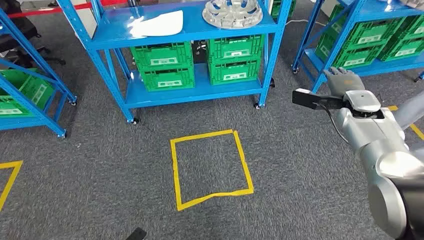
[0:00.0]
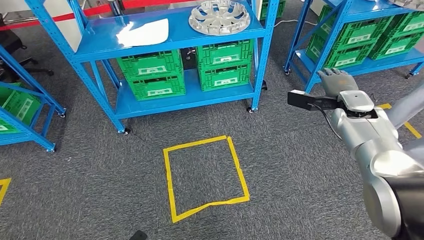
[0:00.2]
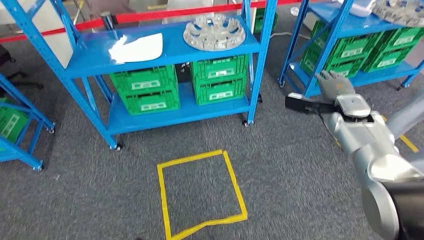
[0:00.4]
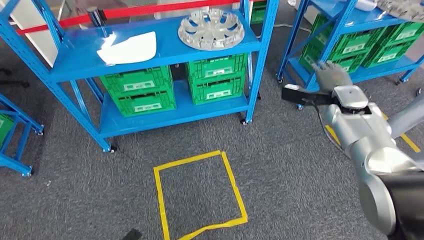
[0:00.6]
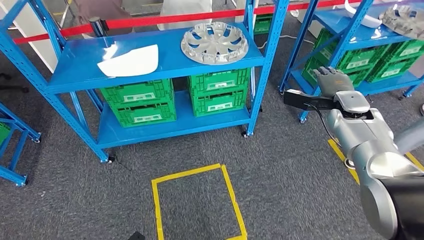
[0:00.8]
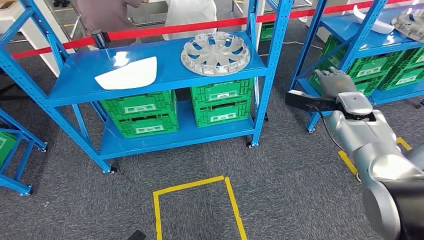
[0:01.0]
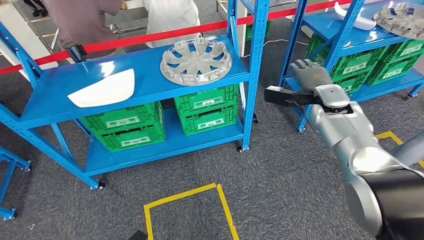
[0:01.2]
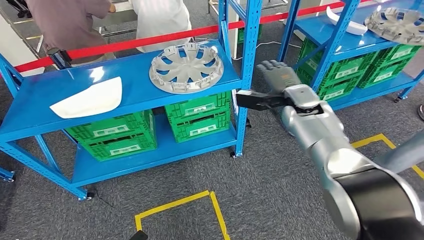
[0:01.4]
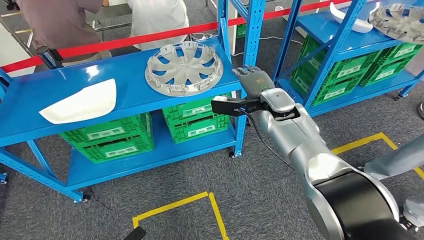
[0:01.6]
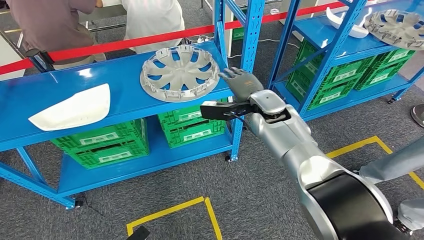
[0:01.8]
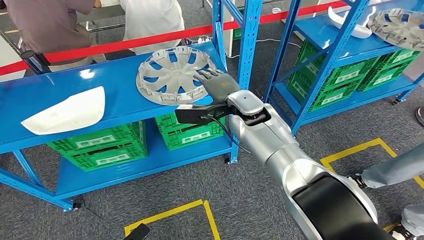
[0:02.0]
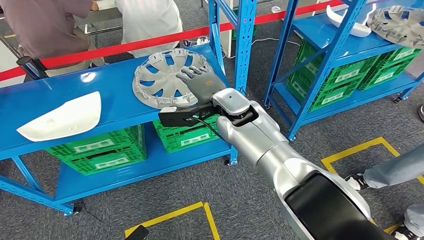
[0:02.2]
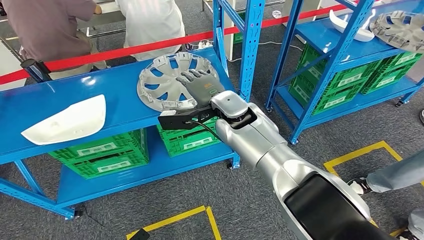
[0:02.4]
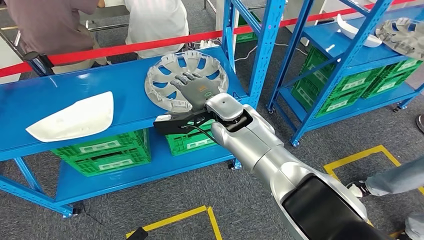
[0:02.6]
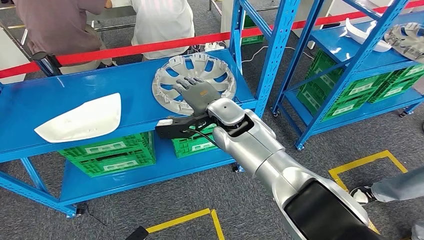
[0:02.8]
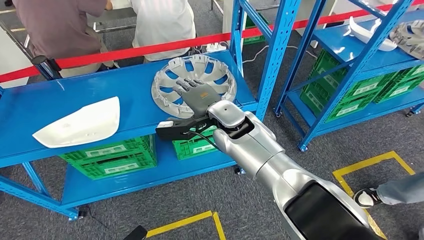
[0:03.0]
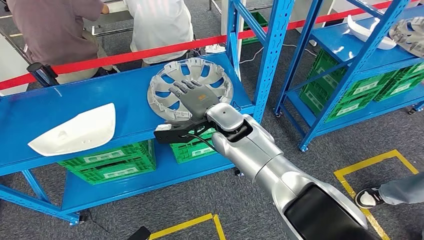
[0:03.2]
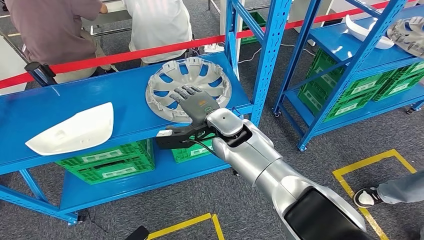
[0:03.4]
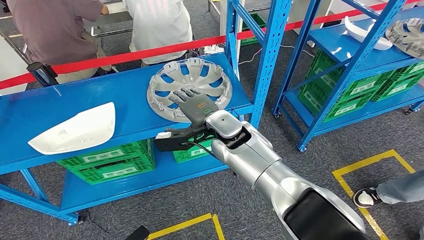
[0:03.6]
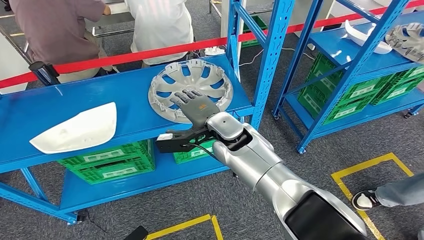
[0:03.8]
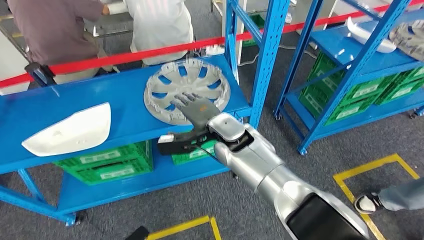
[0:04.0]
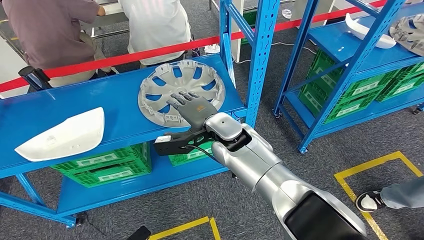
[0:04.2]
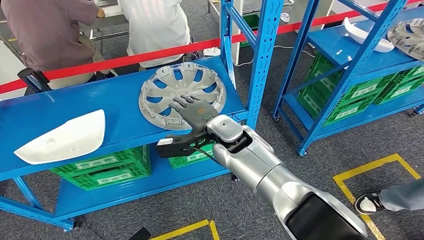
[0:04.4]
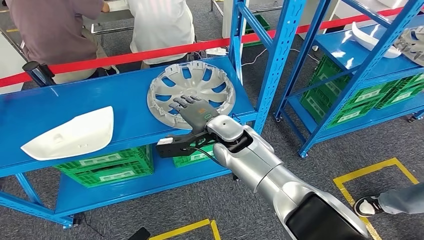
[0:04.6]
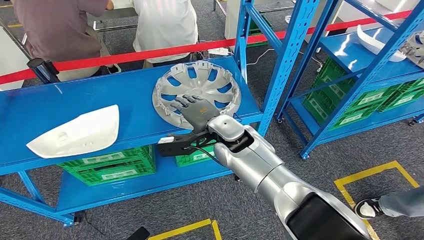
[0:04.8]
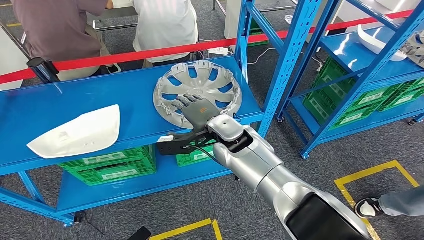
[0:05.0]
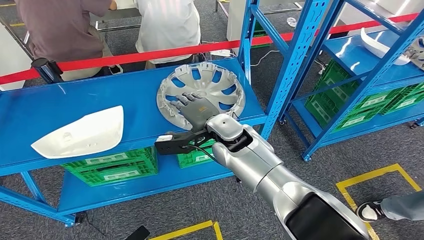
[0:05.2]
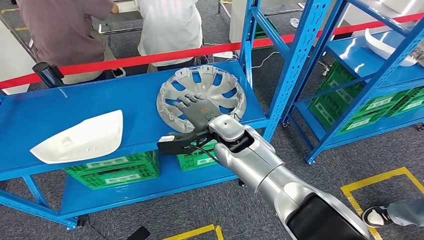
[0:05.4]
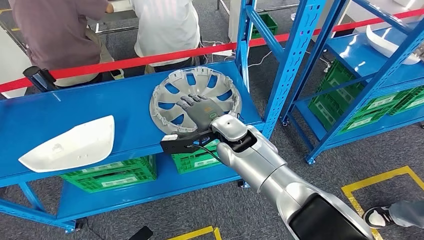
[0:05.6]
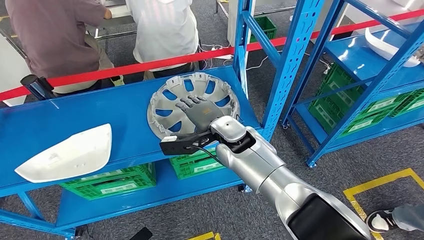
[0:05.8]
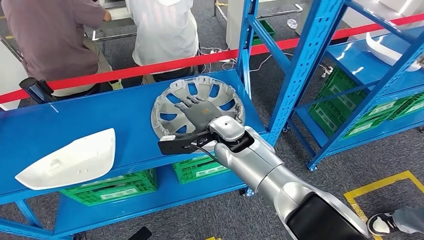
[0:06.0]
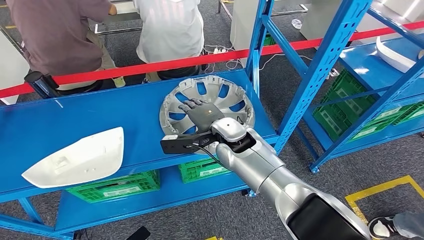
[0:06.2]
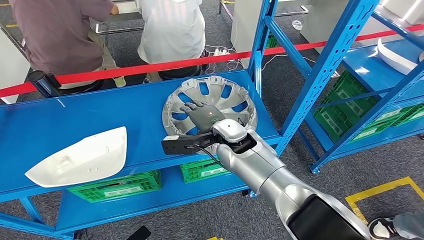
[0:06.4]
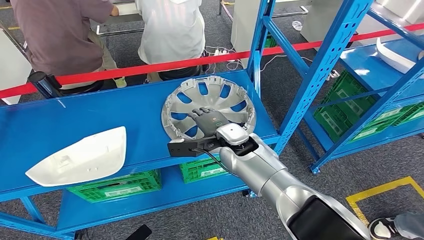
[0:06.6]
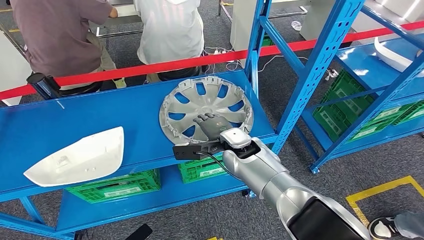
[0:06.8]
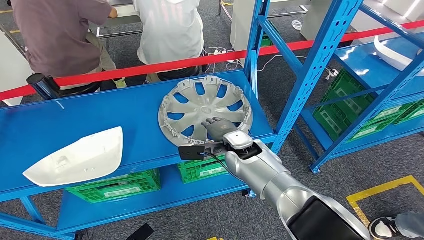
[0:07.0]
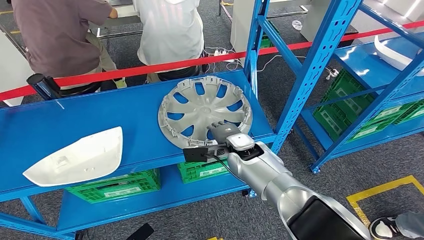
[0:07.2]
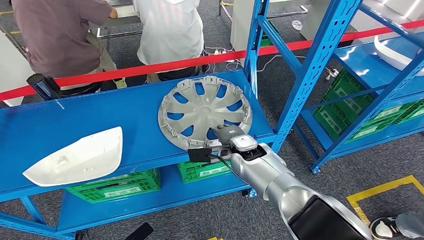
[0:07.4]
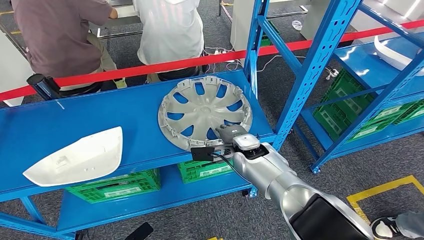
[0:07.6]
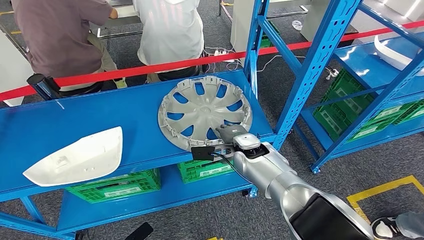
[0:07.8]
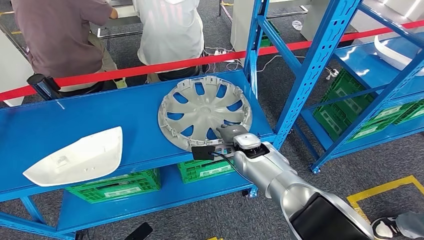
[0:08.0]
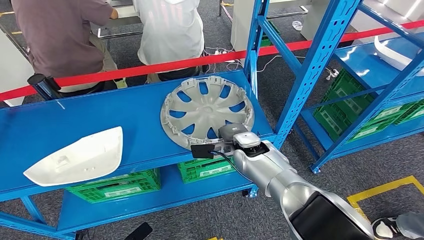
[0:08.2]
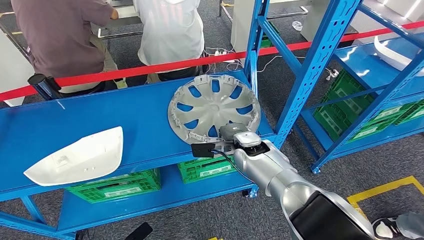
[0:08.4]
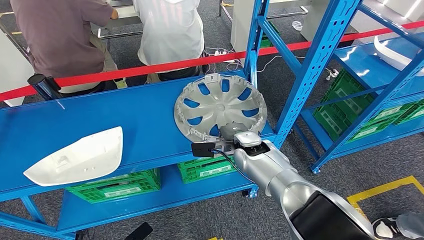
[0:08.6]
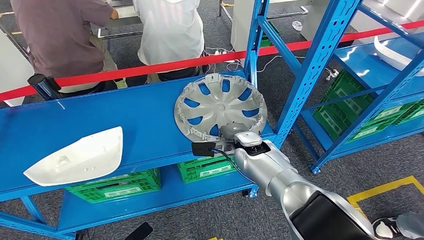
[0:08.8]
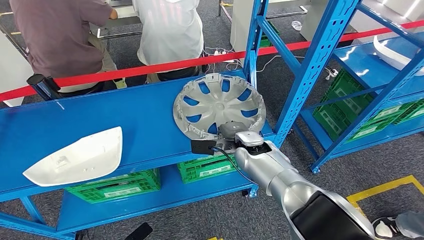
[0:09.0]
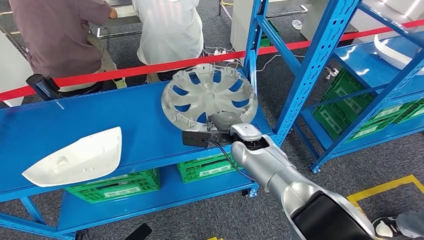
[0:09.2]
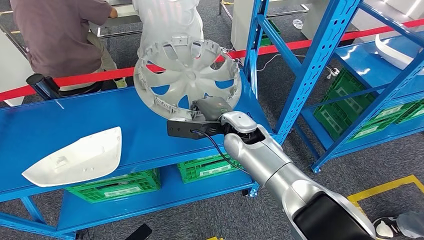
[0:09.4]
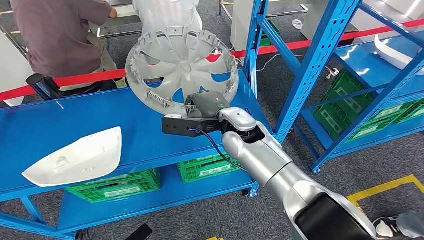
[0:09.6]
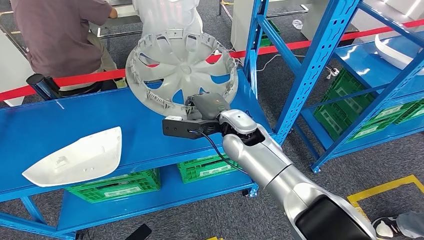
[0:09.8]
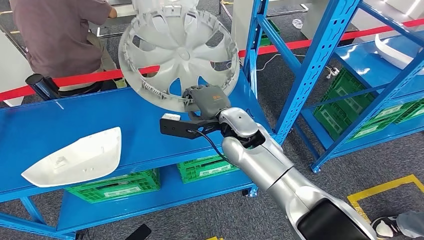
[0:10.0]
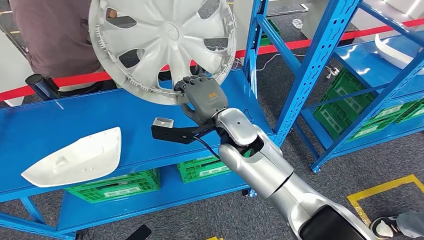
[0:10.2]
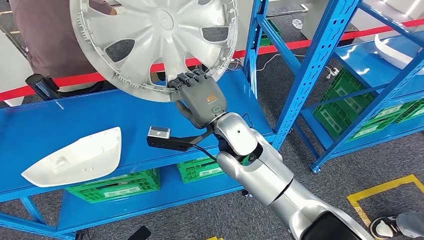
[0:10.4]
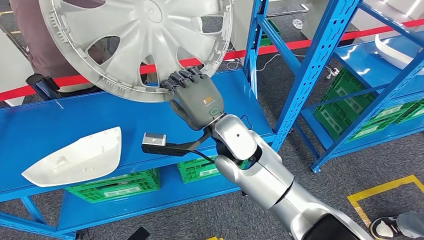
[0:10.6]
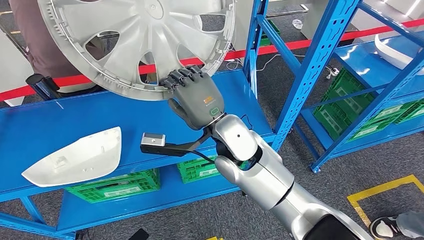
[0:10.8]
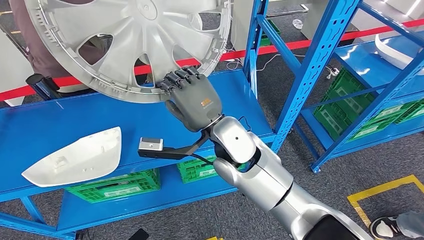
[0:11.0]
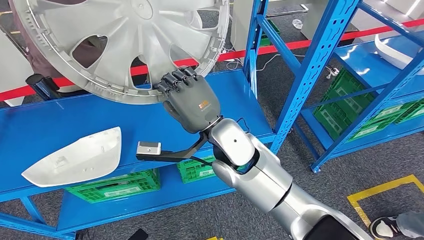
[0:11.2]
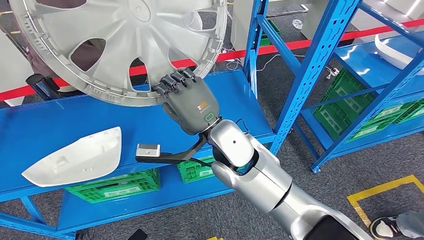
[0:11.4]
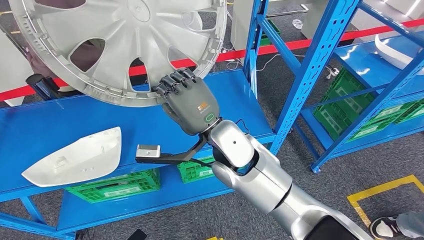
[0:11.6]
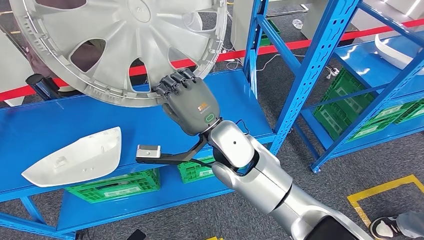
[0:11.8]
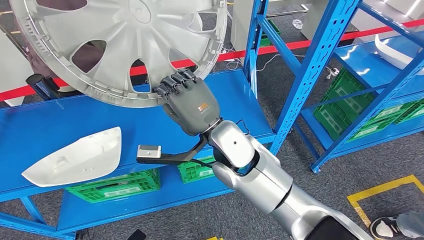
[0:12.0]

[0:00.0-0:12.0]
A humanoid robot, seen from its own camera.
Step, 0:00.0 to 0:09.8: Pick up the large material from the shelf.
0:07.6 to 0:09.0: The hands make only small movements.

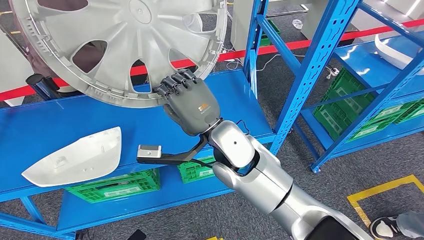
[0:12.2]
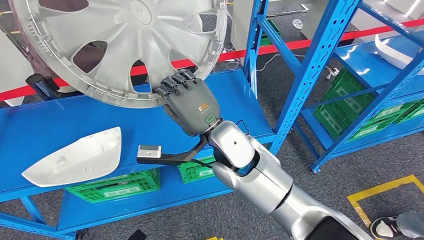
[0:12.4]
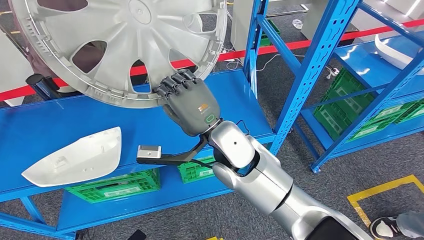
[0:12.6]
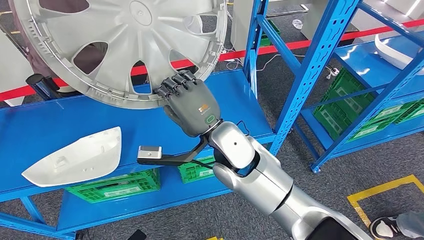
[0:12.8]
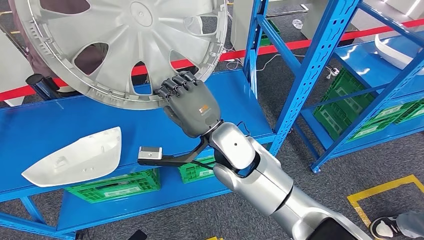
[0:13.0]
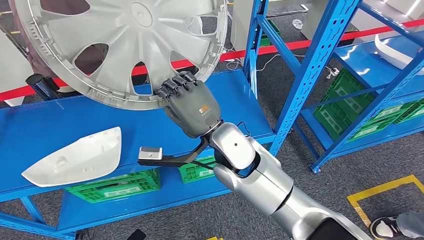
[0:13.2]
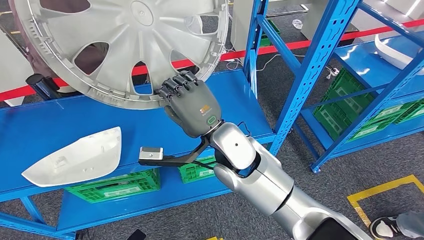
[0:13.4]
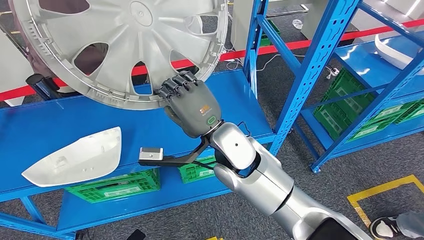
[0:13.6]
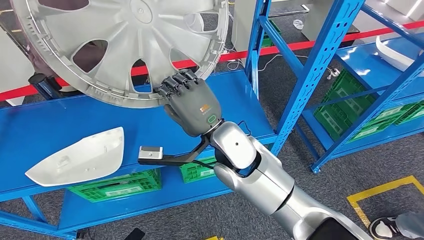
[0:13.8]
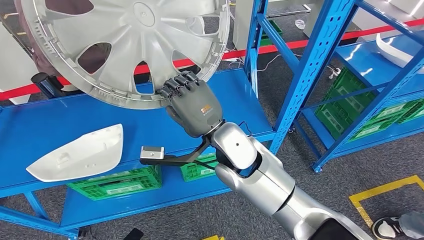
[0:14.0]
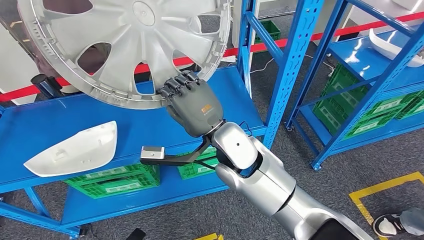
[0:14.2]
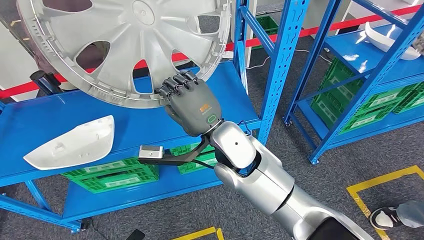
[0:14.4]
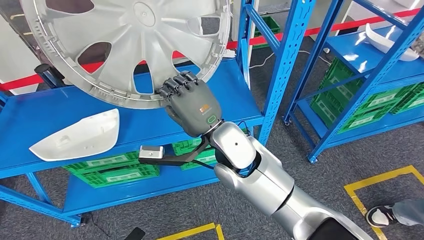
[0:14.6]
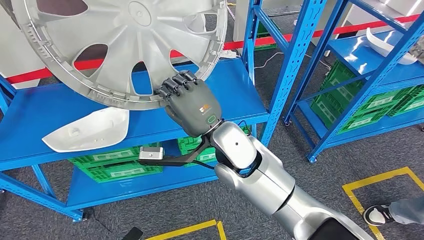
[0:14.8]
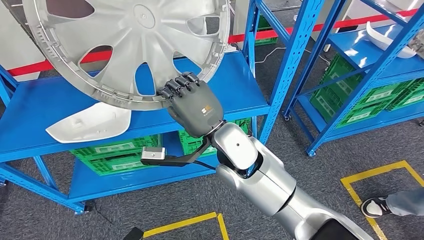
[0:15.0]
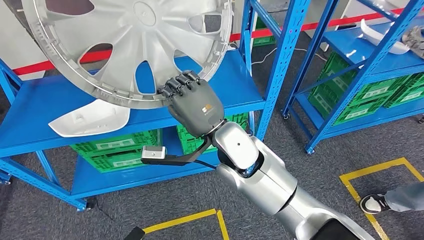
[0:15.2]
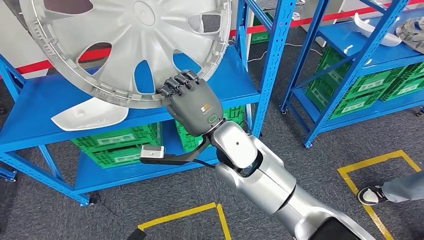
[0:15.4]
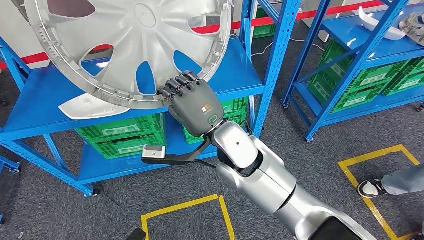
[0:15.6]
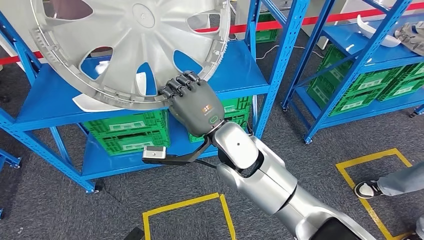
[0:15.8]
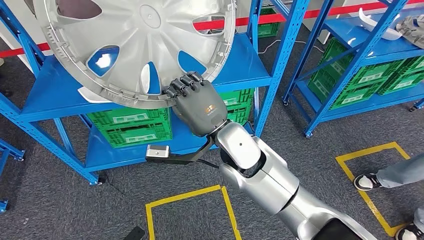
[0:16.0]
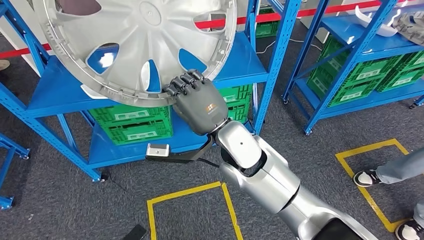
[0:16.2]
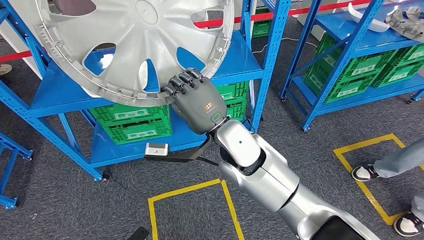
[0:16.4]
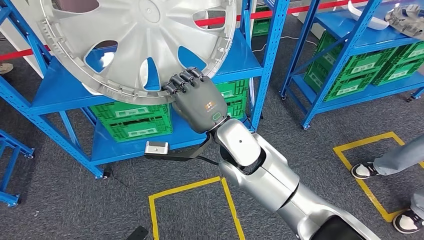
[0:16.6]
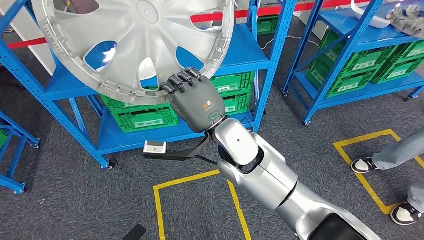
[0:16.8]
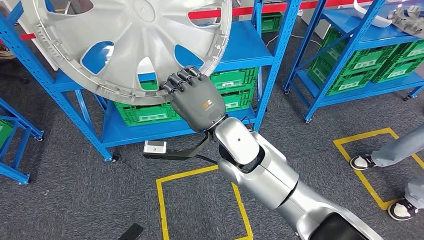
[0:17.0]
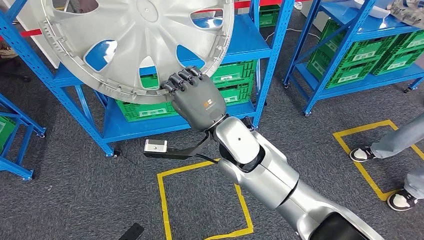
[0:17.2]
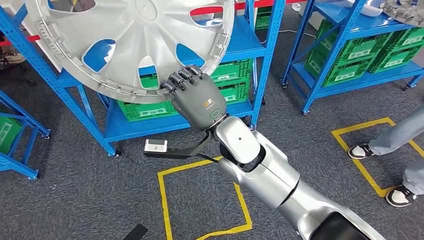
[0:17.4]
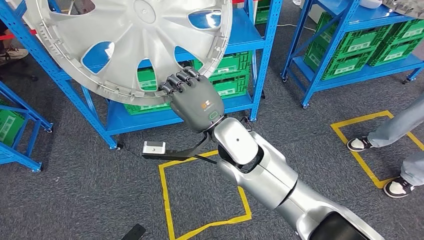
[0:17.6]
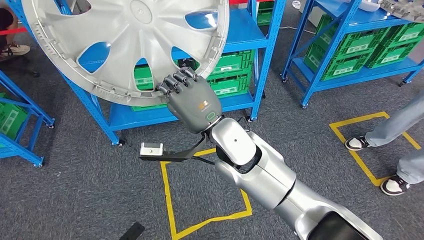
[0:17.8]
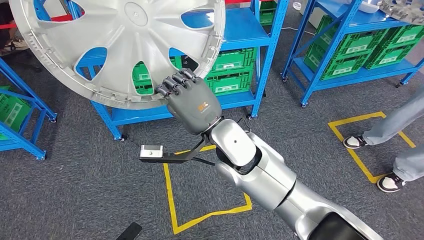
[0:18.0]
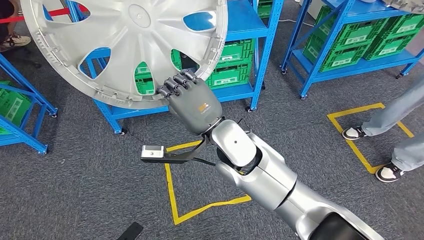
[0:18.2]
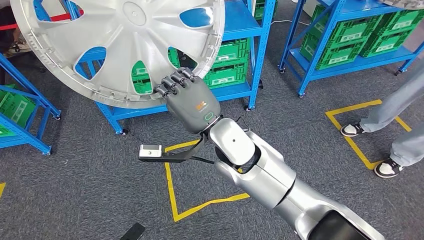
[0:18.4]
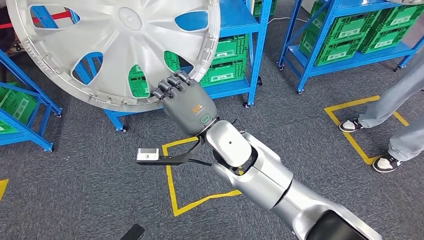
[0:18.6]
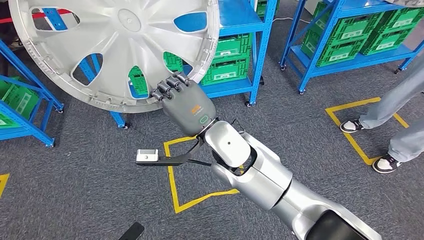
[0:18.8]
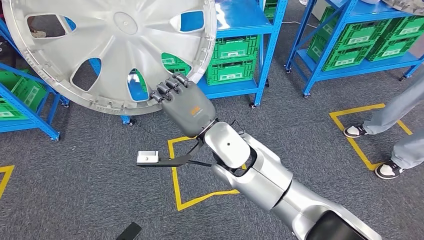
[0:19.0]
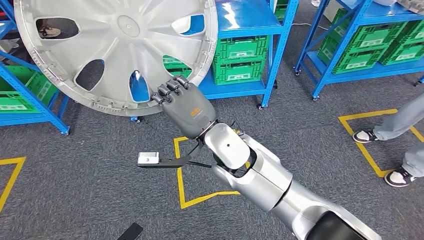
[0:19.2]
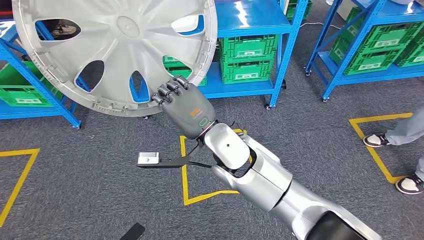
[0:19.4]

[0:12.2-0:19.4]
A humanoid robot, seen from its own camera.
0:12.2 to 0:13.6: Neither hand changes place.
